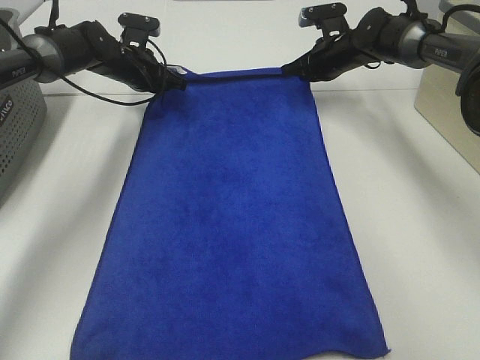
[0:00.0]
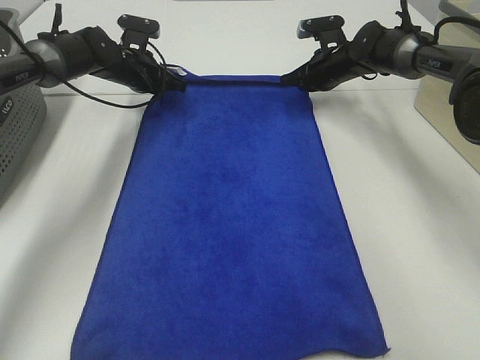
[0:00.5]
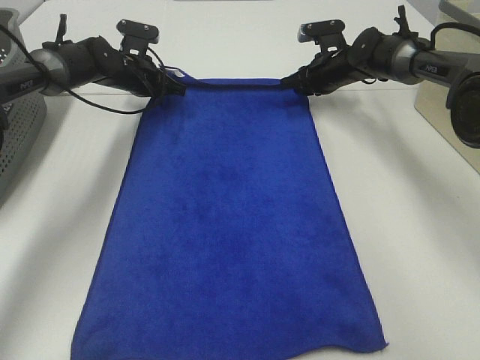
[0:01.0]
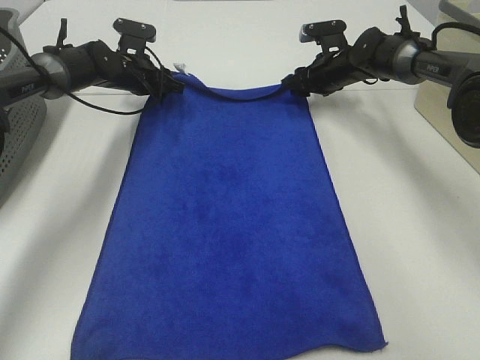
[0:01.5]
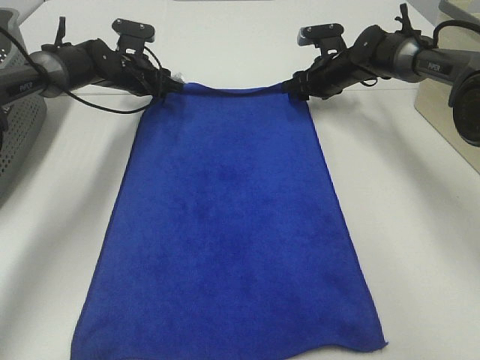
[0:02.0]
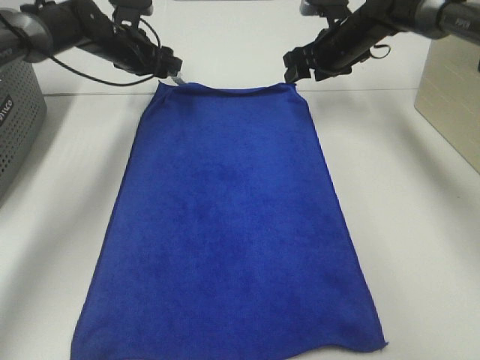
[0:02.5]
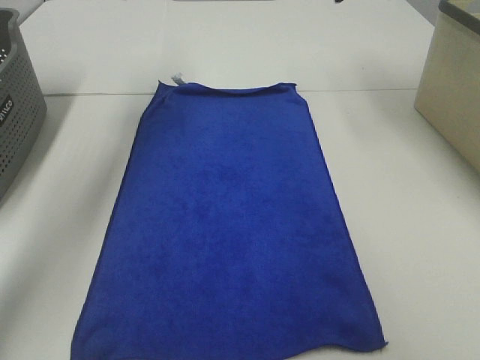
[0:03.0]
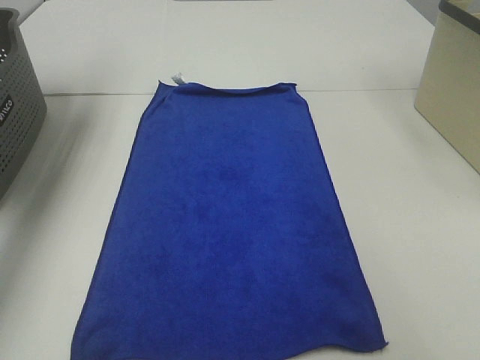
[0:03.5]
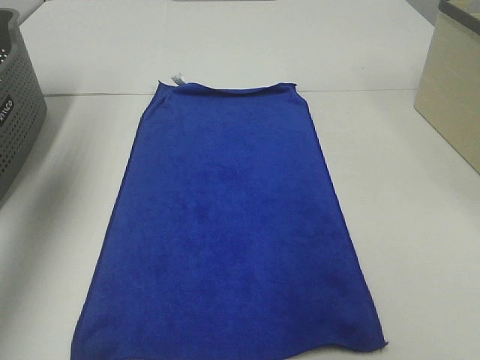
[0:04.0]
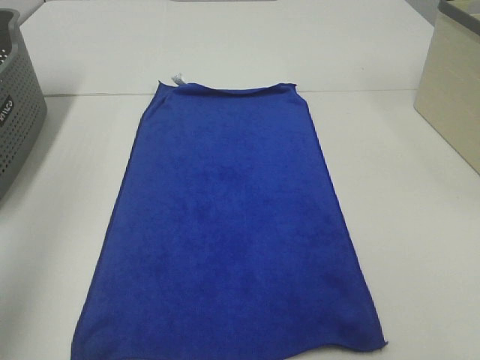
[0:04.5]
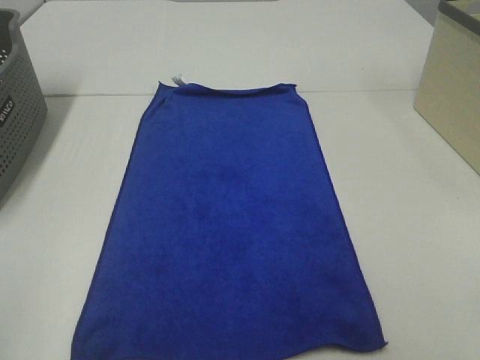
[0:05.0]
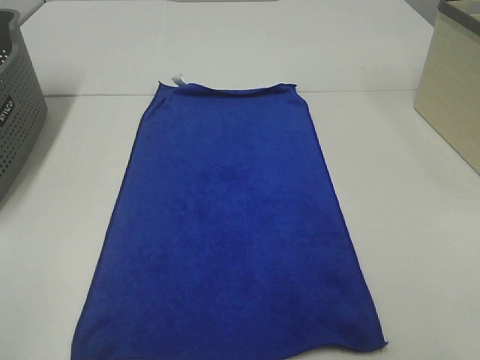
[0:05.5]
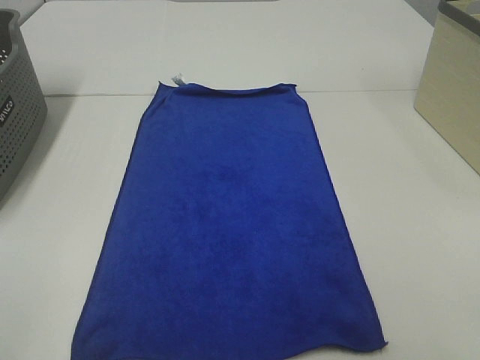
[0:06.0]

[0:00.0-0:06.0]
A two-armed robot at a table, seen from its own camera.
Task of the whole recording: Remove the towel and place it.
0:00.0 to 0:02.0: The left gripper opens; the right gripper opens up.
0:02.0 to 0:04.0: The right gripper moves backward and upward, about 50 cm. The left gripper goes roughly 40 cm upward, backward and to the left.
0:04.0 to 0:06.0: The left gripper heads backward and downward, covering some 35 cm.
